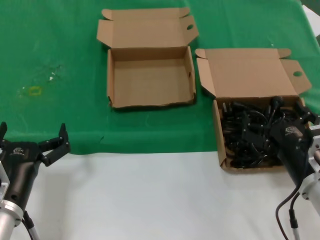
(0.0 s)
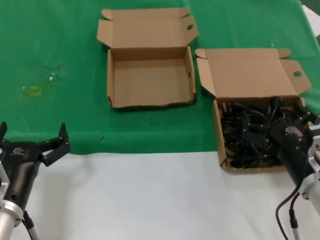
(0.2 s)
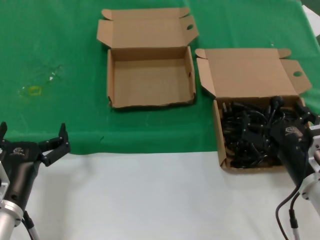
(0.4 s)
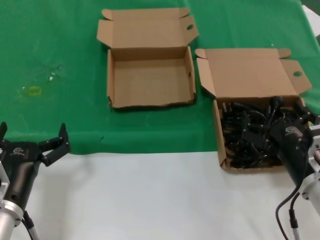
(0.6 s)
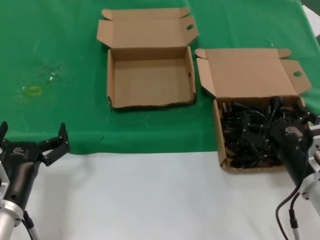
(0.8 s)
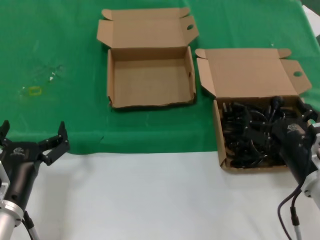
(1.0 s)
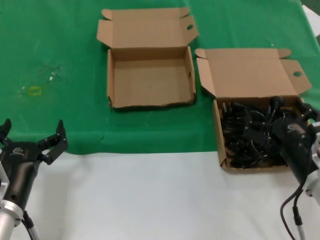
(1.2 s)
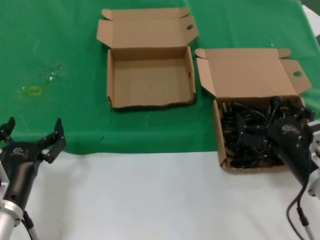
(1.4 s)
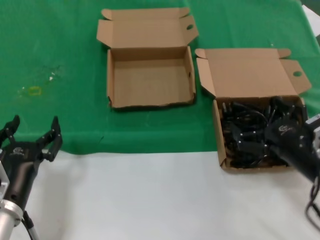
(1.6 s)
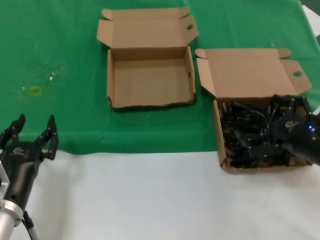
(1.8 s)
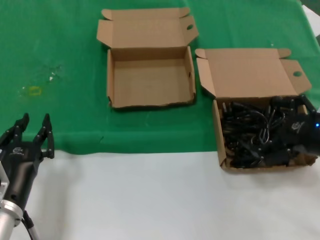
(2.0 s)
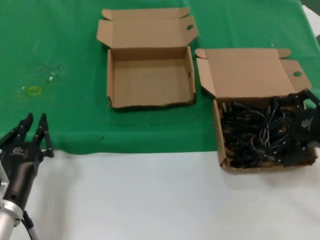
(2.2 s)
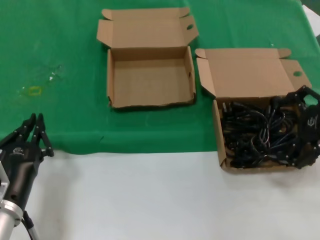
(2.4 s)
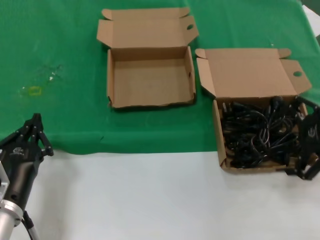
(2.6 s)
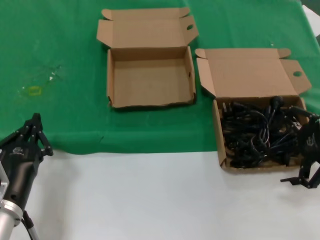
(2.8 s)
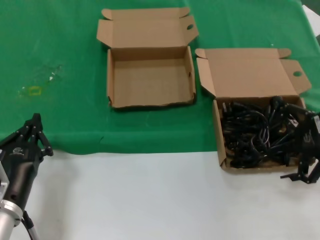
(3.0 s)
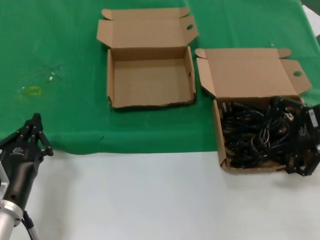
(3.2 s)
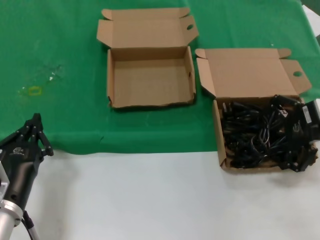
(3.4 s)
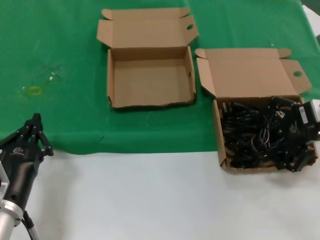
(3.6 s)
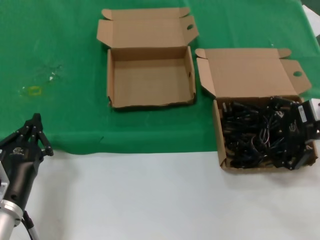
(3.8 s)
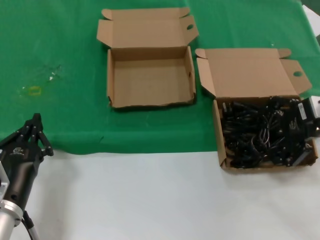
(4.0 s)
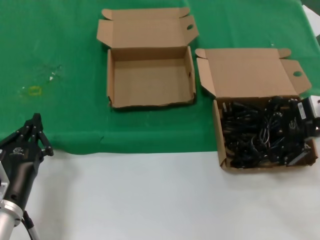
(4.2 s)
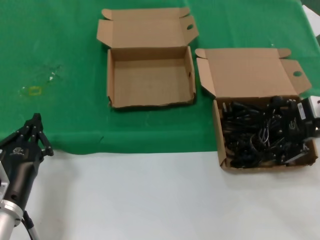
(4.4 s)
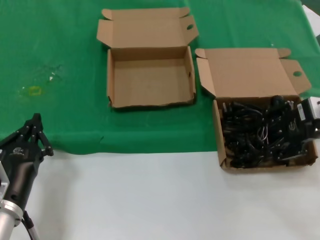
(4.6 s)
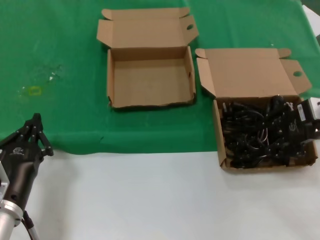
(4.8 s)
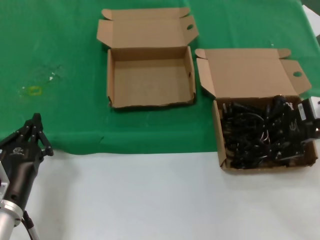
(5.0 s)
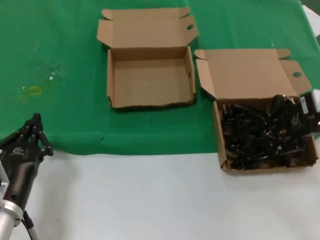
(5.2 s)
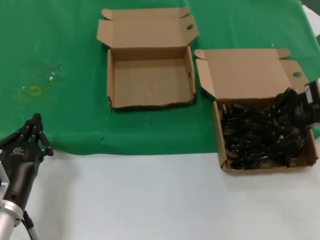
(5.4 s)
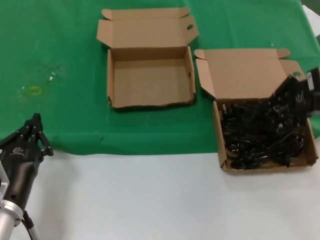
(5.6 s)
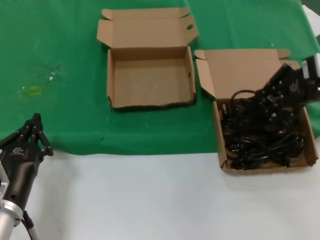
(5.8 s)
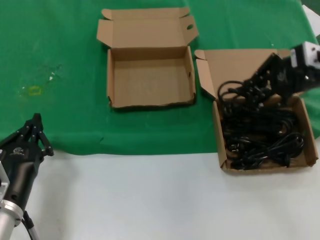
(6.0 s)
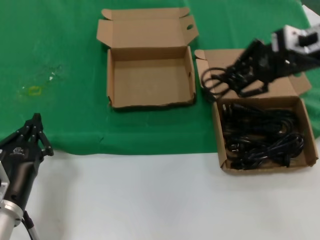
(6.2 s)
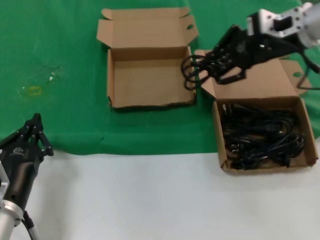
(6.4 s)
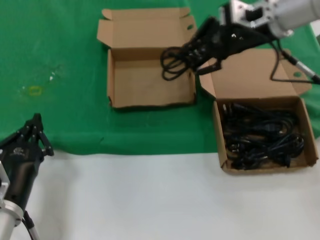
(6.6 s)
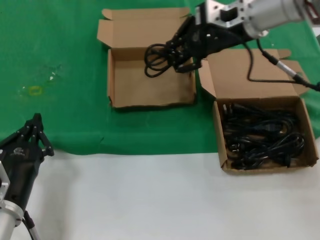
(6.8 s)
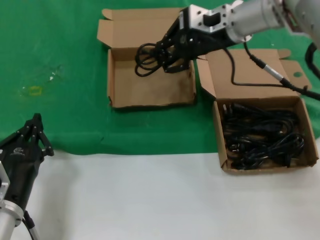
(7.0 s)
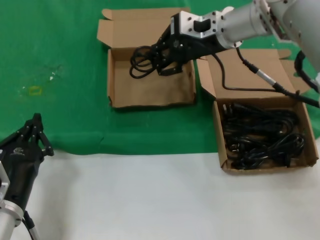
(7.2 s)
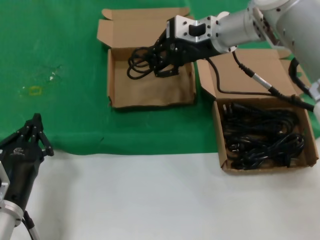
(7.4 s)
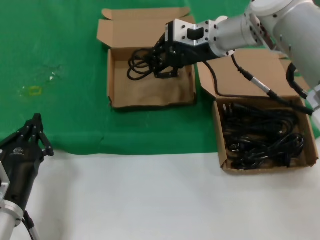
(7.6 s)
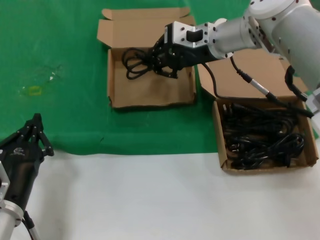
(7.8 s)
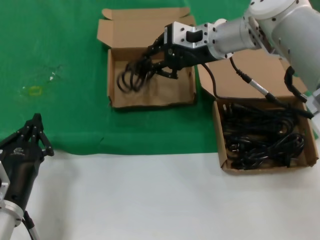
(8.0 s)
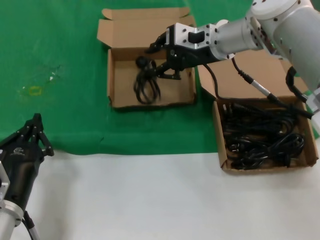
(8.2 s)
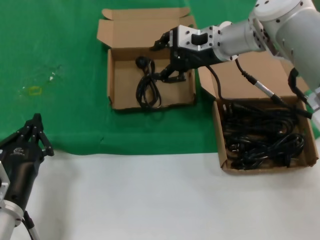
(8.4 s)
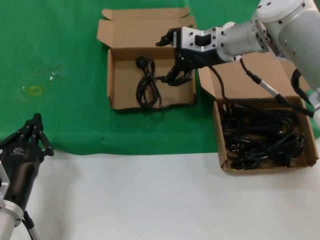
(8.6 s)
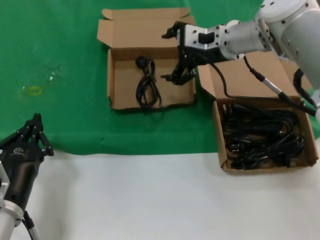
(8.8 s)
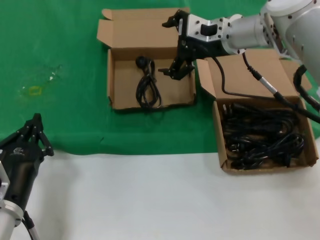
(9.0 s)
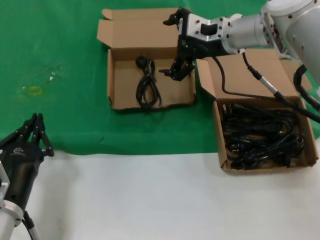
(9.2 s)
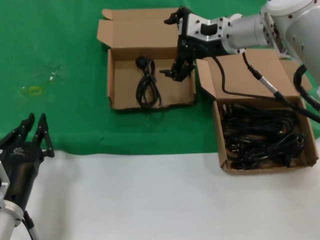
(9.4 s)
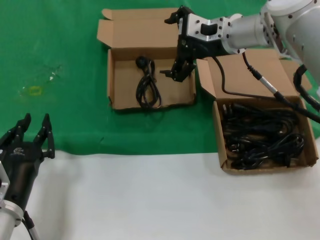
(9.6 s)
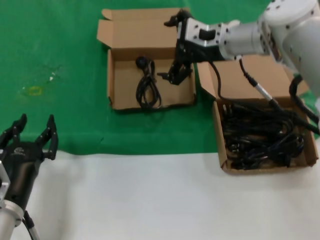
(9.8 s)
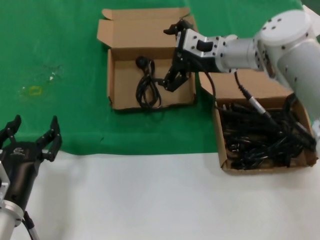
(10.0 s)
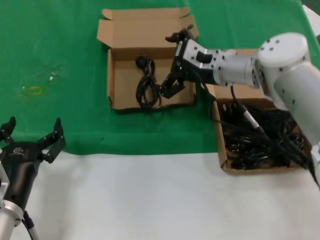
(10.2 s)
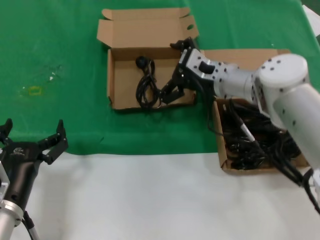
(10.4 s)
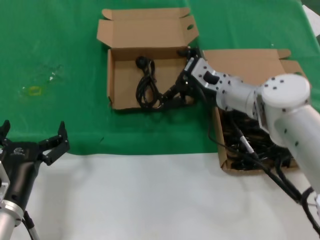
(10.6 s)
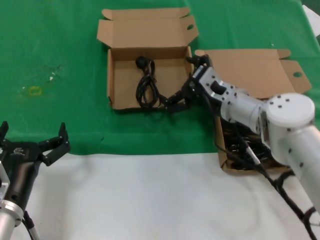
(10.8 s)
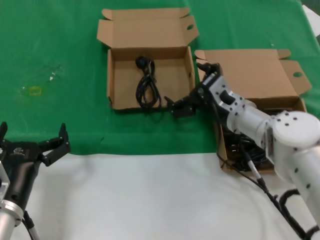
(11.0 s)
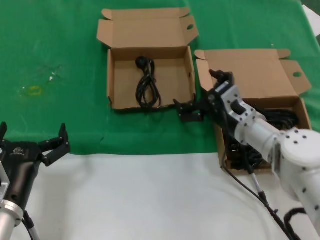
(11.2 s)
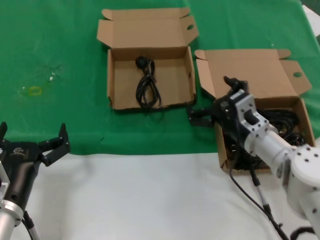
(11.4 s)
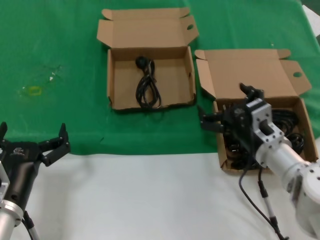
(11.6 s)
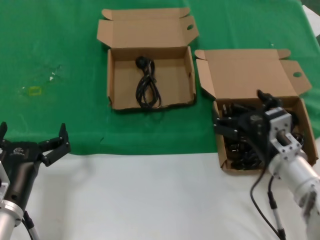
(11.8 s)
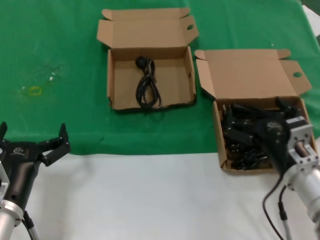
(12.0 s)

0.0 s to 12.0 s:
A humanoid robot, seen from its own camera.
Task of the whole recording: take the parts from the box containing them and put them into an empty box.
Step, 0.0 to 5.0 s: Grasp the data cable.
Step, 5.2 to 8.4 s: Place the data cable in the another box.
0.0 to 1.6 s: The hands move only a little.
1.6 to 3.0 s: The right hand moves upward, forward and to the right, about 20 cm.
3.0 to 4.4 s: The hands make only small movements.
4.4 to 6.0 s: The right hand shifts approximately 10 cm upward.
6.0 to 7.6 s: The right hand goes some 25 cm to the left and forward.
7.6 to 9.0 s: The hands move only a little.
9.0 to 10.4 s: The right hand travels downward by about 10 cm.
10.4 to 12.0 s: The right hand moves backward, downward and to the right, approximately 25 cm.

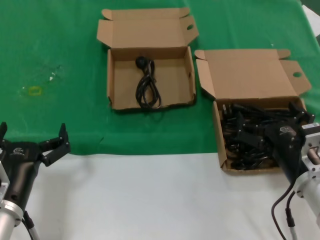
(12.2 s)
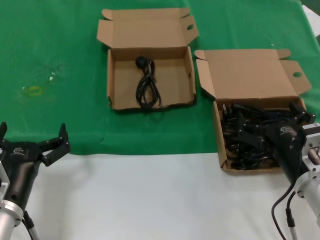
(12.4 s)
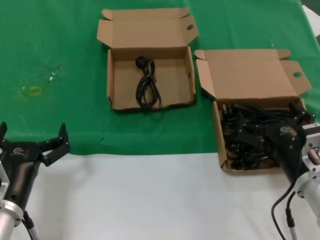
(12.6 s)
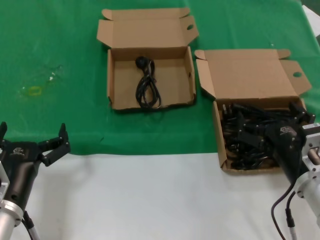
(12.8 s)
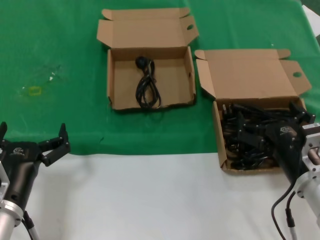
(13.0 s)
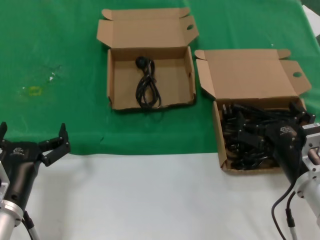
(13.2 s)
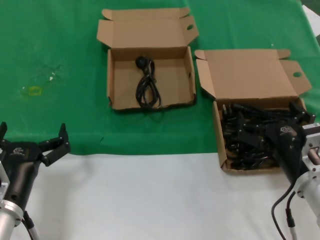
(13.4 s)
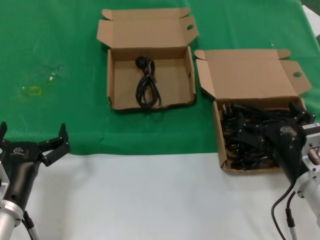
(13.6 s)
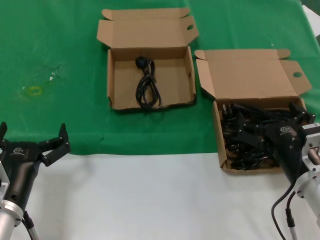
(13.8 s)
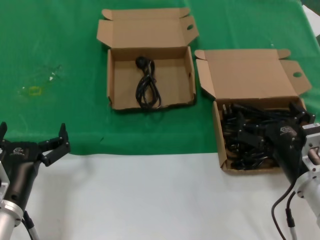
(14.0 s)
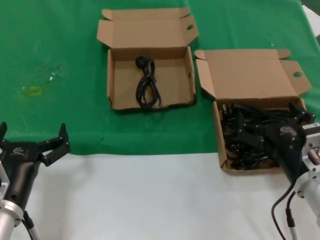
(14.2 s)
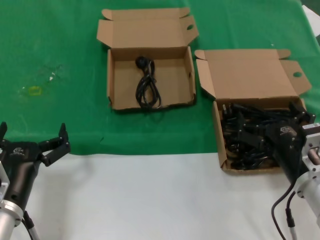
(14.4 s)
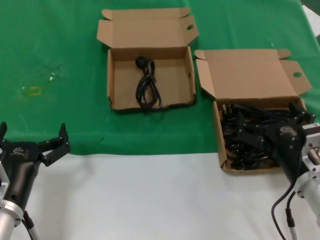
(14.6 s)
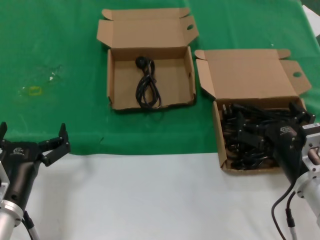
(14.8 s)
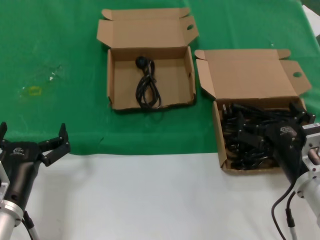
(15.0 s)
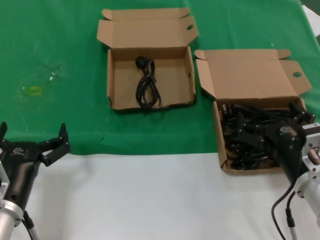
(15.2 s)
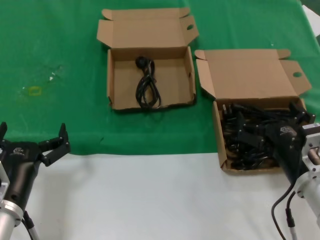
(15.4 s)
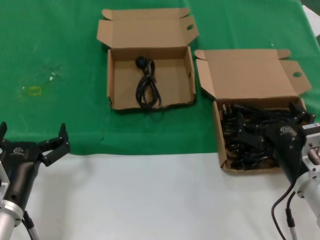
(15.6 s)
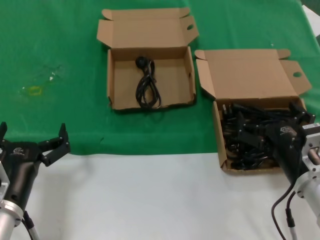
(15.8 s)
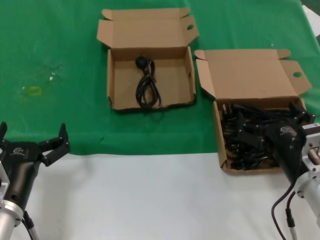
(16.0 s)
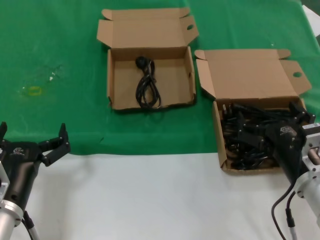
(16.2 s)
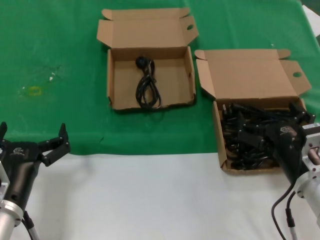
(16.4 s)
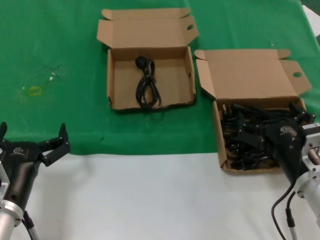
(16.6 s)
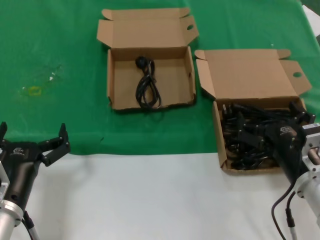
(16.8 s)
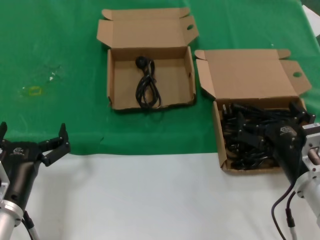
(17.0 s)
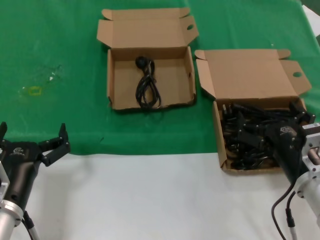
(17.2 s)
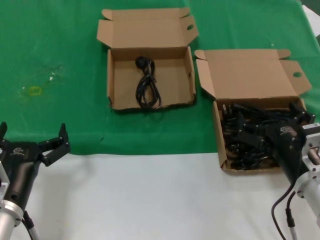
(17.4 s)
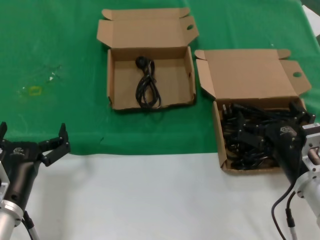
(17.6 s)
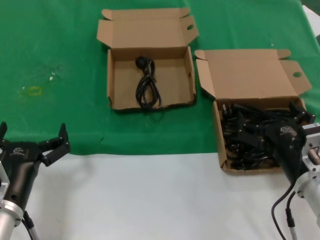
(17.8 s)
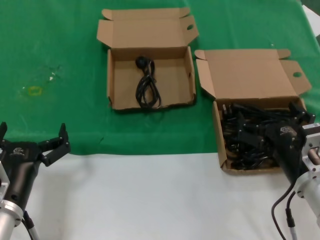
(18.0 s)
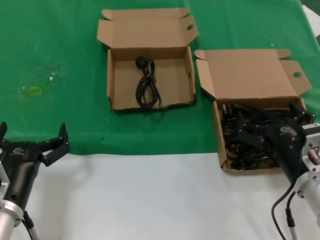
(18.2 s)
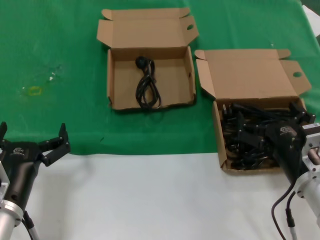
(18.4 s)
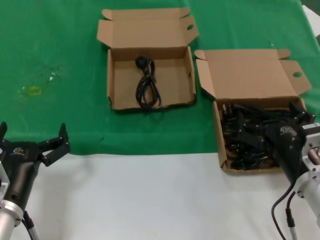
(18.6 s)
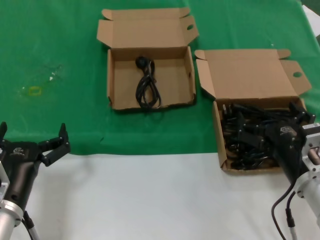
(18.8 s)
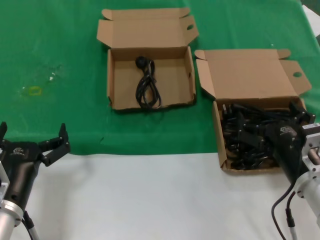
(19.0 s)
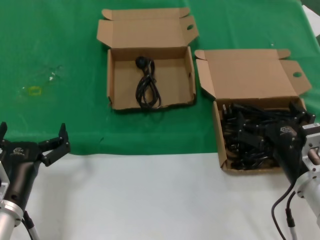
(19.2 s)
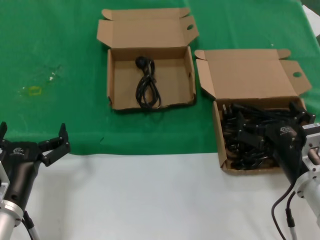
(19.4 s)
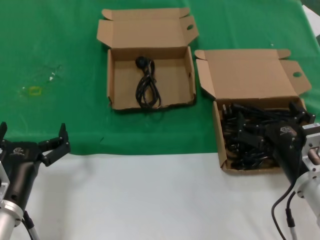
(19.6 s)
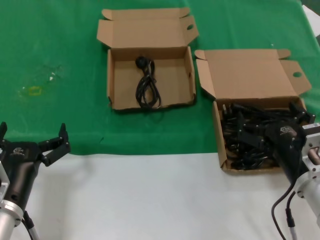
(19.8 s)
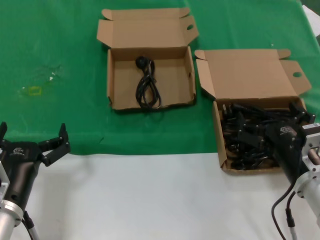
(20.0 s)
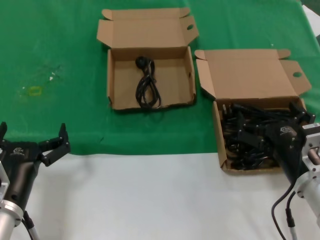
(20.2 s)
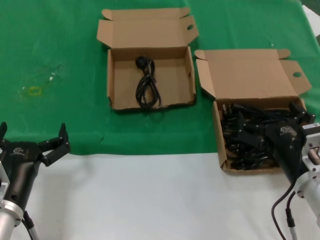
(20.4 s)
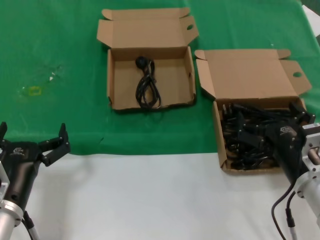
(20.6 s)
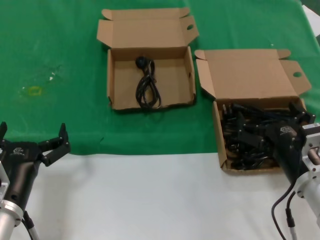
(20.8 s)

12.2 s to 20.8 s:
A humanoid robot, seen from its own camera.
Task of the whole recording: take the parts from the box containing them and put them into an empty box.
12.2 to 20.8 s: Neither hand changes place.

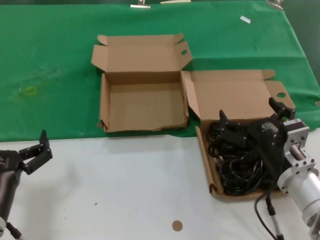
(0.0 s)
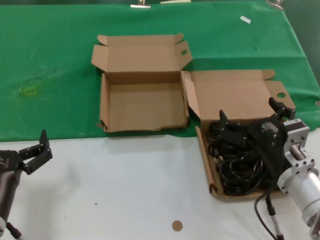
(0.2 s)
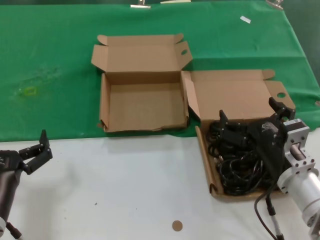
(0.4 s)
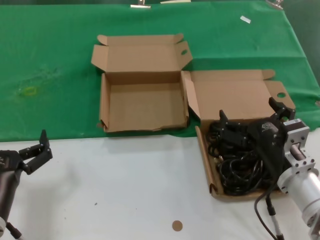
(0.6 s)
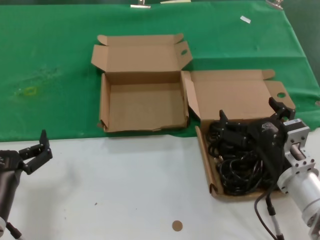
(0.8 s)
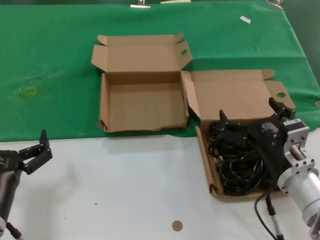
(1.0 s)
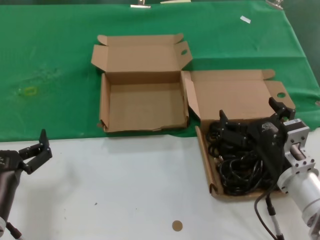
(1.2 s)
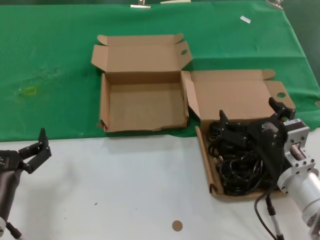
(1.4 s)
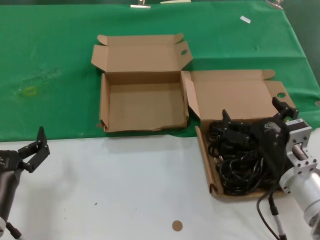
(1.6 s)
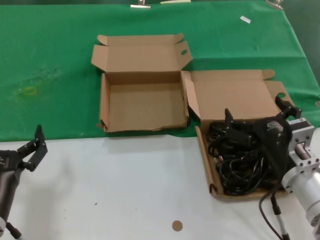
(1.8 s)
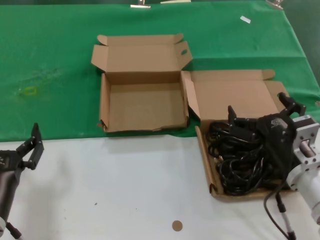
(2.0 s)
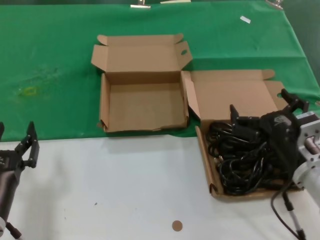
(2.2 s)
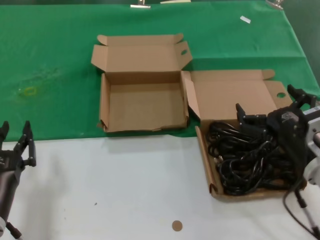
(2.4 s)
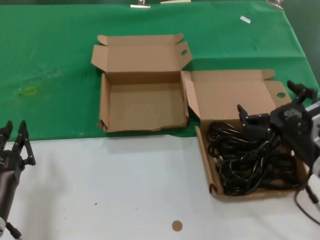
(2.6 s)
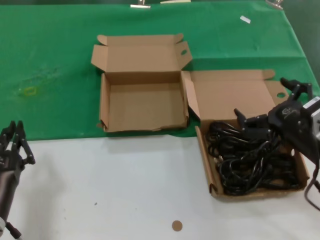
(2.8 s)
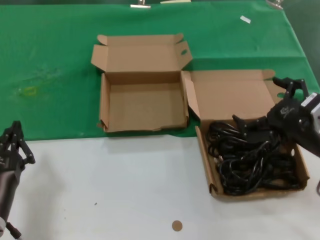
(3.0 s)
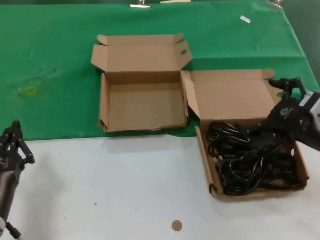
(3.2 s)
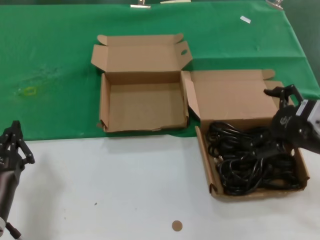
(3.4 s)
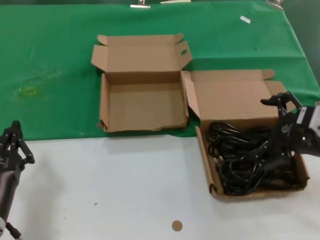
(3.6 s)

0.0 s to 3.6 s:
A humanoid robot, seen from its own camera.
Task of the whole recording: take the parts from the box containing them and put them into an empty box.
0.0 to 1.8 s: Neither hand changes place.
1.8 to 3.6 s: The right hand shifts roughly 15 cm upward and to the right.
